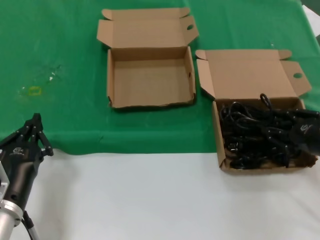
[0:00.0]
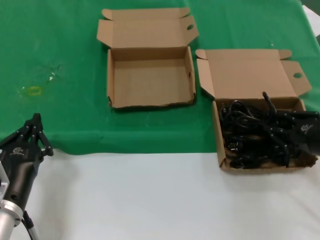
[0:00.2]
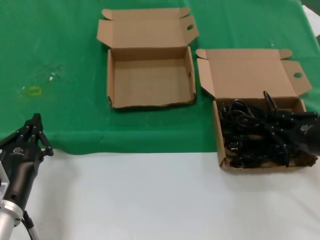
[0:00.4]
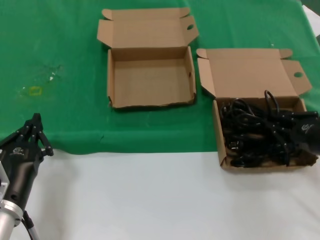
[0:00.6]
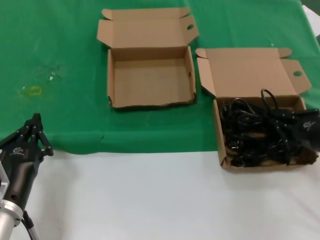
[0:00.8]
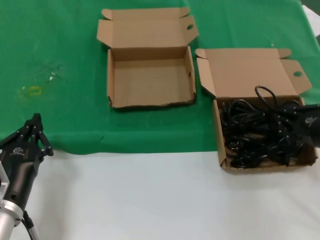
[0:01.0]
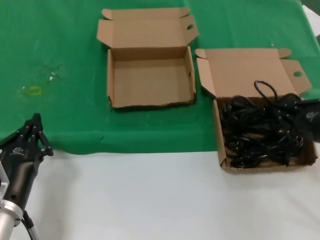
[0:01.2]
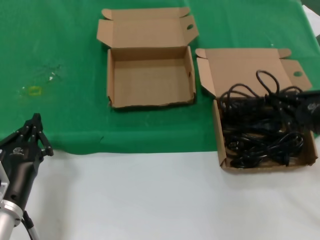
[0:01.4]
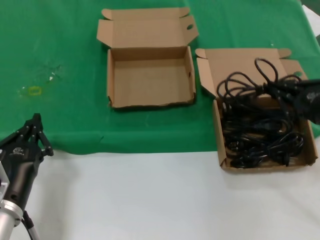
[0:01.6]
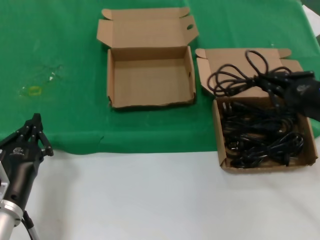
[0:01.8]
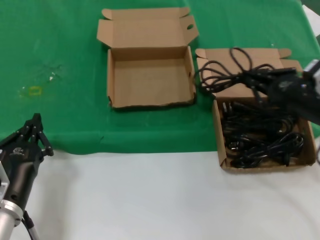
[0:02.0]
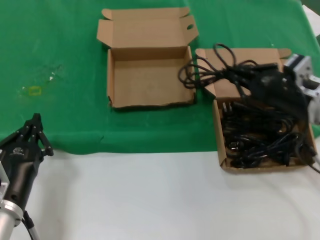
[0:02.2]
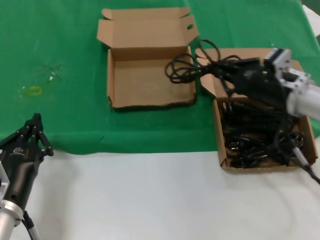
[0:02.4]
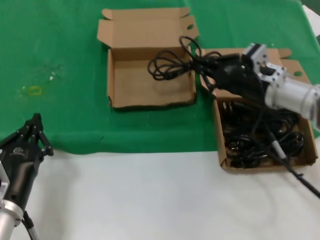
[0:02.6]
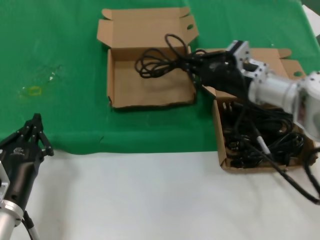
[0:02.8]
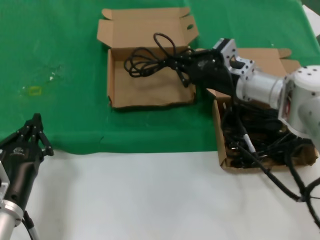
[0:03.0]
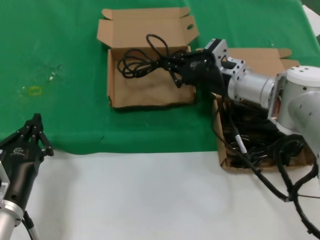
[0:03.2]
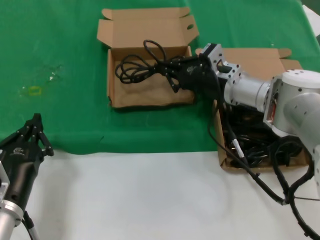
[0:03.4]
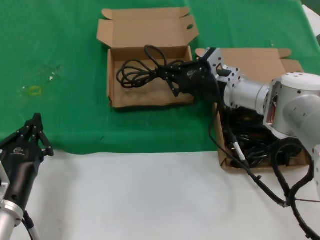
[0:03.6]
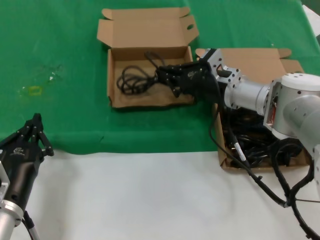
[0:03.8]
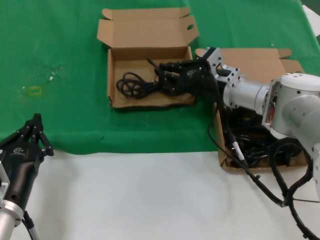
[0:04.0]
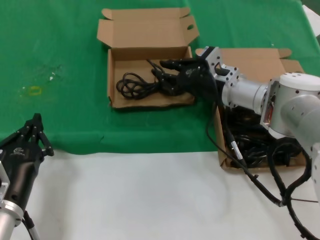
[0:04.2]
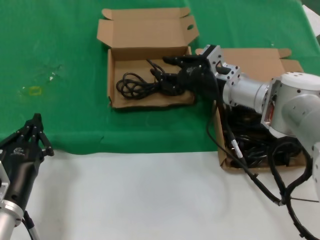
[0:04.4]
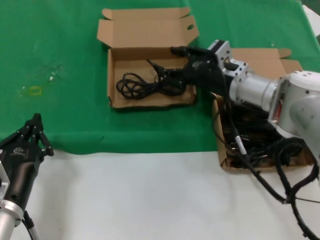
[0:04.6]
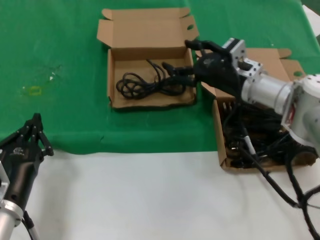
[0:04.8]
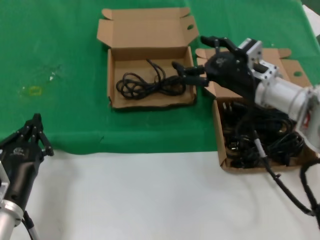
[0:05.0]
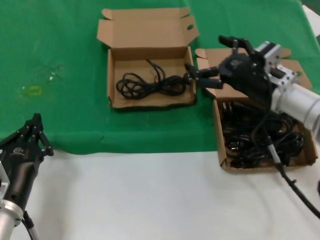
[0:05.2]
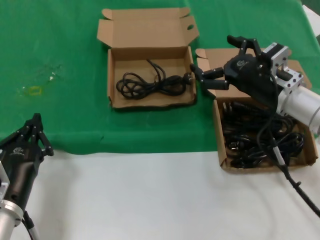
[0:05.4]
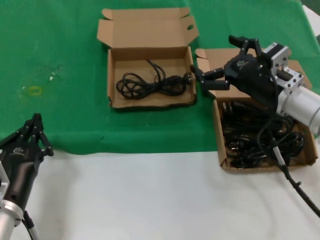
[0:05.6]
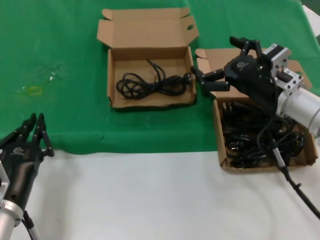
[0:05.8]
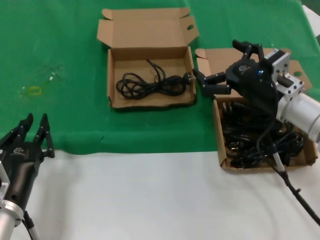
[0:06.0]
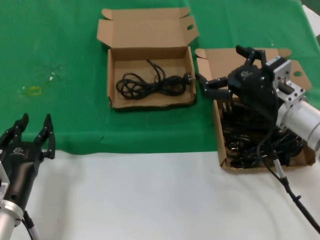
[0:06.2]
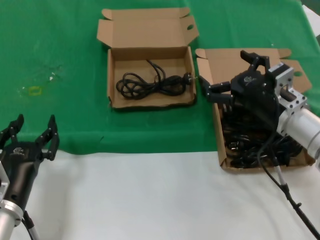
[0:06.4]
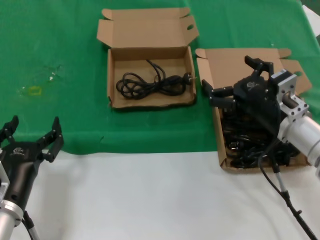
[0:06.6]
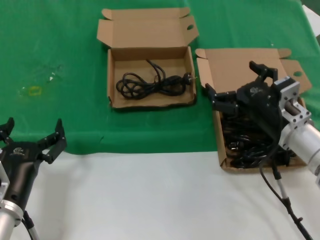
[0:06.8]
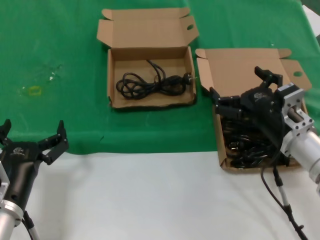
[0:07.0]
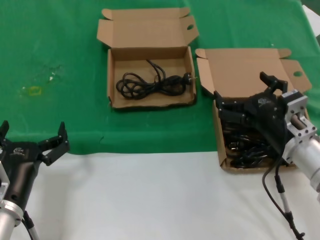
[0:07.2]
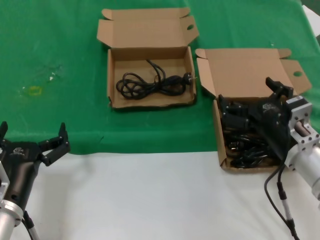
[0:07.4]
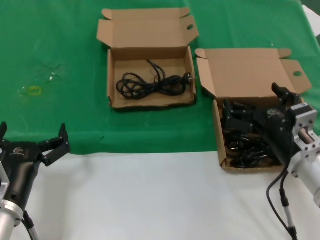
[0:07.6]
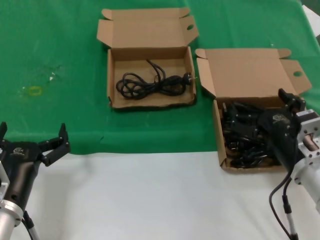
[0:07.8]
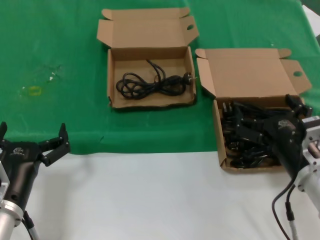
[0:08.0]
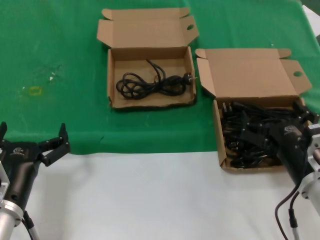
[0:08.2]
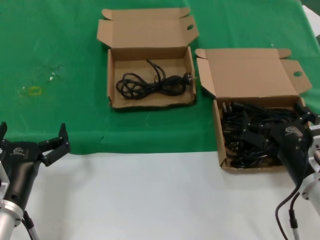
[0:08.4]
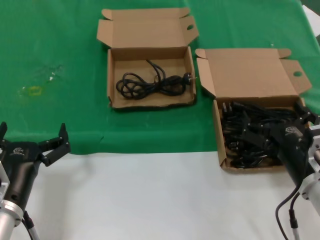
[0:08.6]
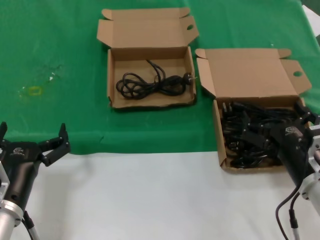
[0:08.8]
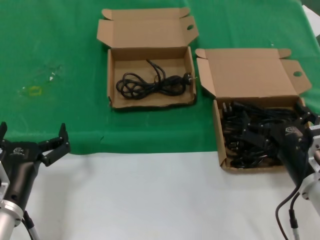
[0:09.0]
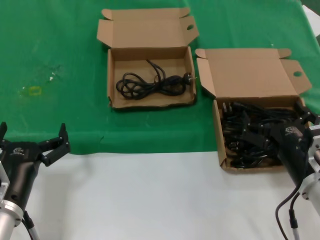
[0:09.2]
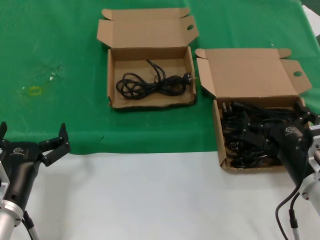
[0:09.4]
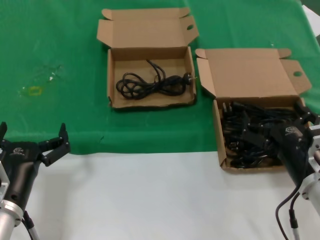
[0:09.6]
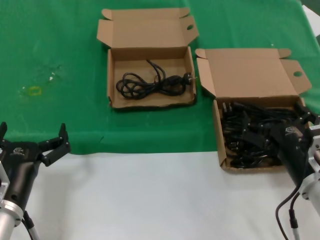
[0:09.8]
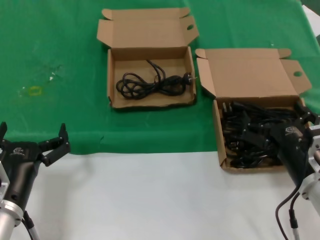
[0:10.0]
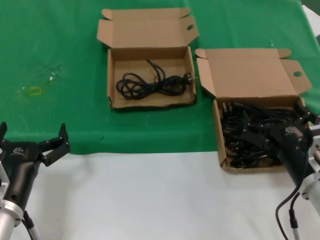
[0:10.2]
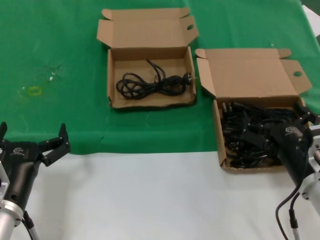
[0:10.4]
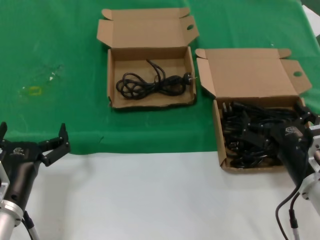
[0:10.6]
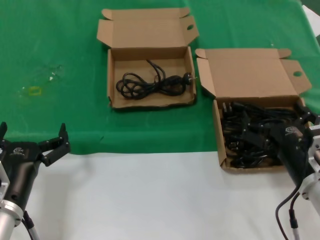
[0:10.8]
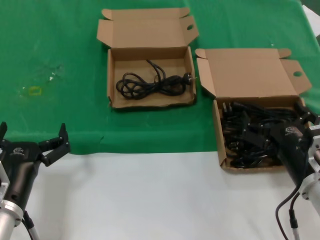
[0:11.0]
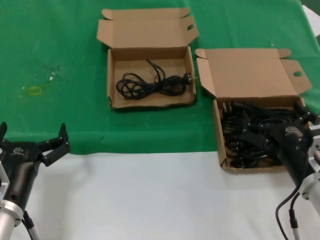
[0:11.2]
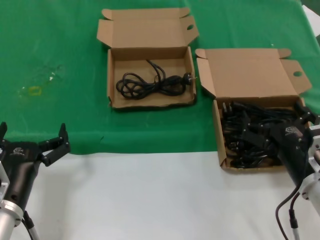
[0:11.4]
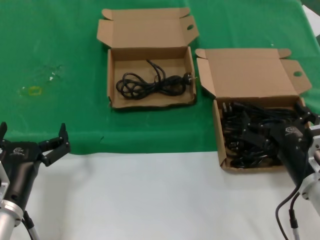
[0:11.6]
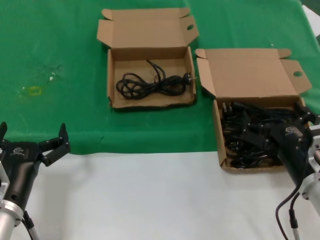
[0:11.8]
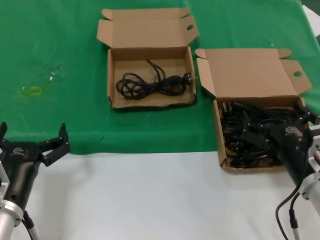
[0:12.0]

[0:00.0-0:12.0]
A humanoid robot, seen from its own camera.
Task of the whole recording: take the parts from the box containing them and put them into an empty box.
Step, 0:01.0 to 0:03.8: Place the data cable in the another box.
0:00.0 to 0:01.6: The right hand heads upward, covering roughly 5 cm.
0:01.6 to 0:03.0: The right hand travels forward and to the left by roughly 25 cm.
0:03.0 to 0:04.4: There are only small adjustments of the hands.
0:04.4 to 0:06.0: The right hand moves backward and to the right, some 10 cm.
0:06.0 to 0:07.6: The right hand shifts some 10 cm backward and downward.
0:07.6 to 0:09.0: The hands make only small movements.
0:09.0 to 0:12.0: Both hands stay put.

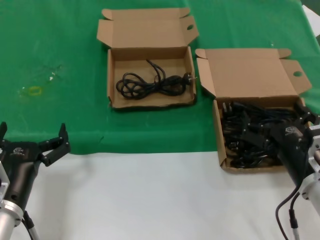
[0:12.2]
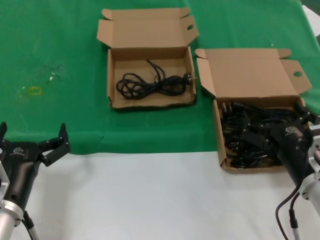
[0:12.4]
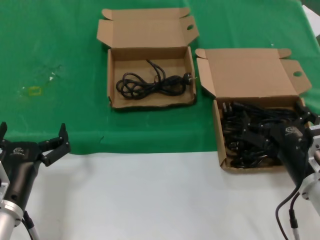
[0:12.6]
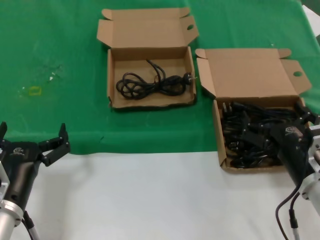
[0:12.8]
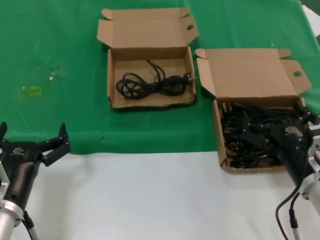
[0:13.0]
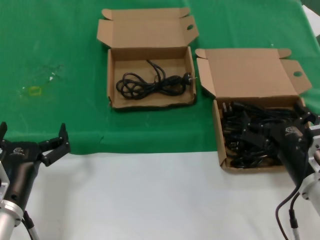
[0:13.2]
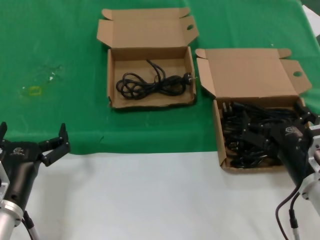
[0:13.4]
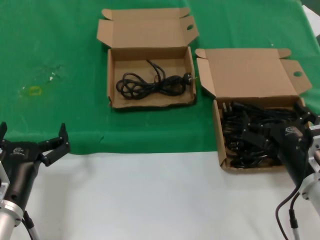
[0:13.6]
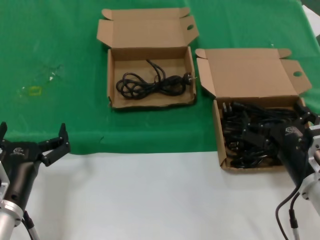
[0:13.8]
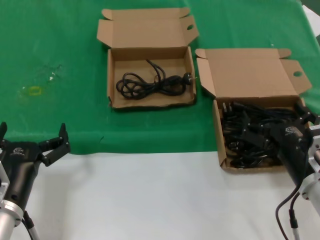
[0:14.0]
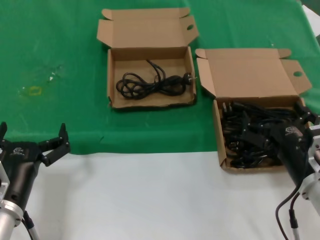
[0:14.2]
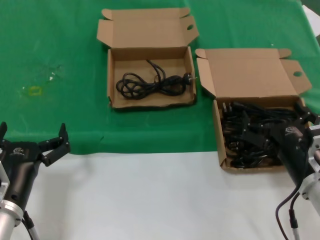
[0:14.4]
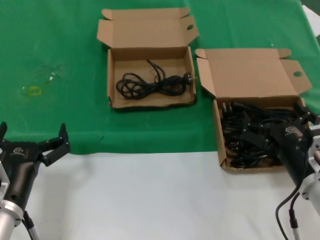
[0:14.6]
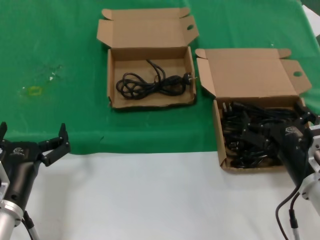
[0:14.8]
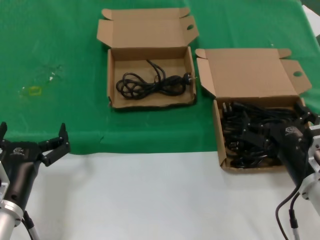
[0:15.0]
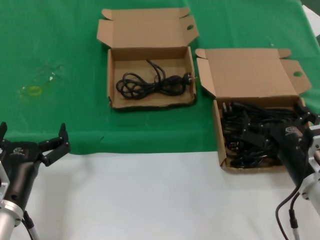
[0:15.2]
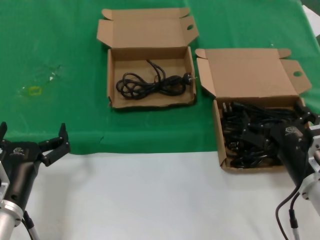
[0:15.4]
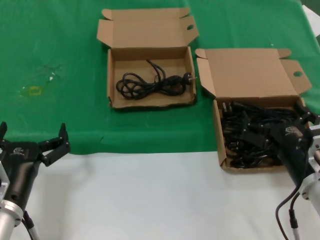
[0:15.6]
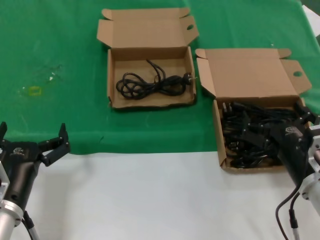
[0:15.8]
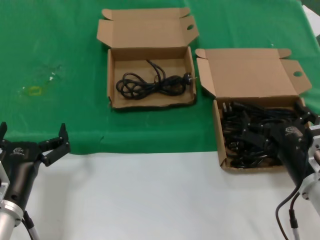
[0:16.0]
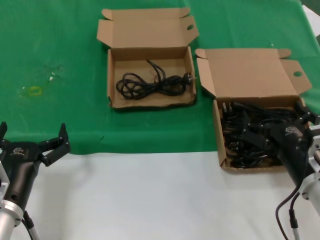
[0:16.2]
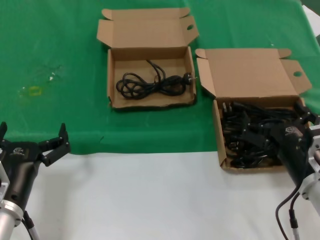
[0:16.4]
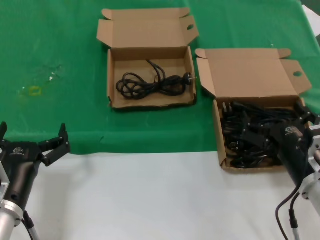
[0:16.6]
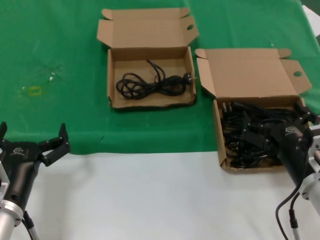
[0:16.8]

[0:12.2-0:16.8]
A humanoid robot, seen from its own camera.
Task of the whole recording: take the parts from the box containing them and put them into an empty box.
0:12.2 to 0:16.8: The two hands keep their place.

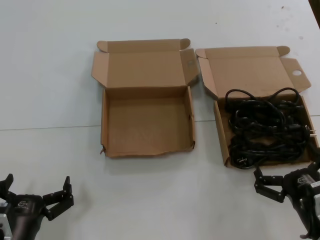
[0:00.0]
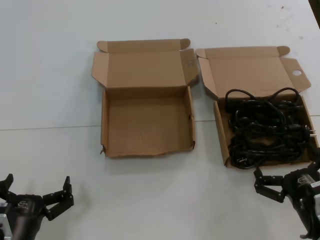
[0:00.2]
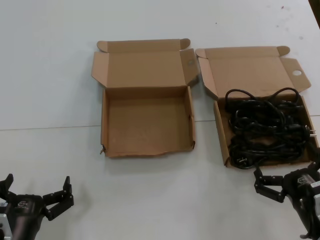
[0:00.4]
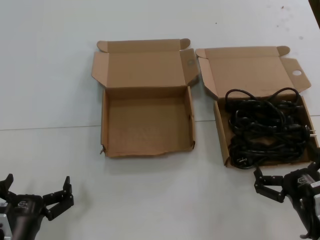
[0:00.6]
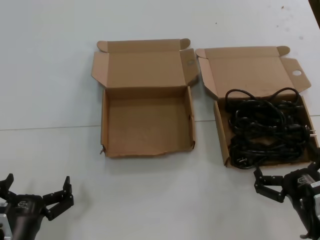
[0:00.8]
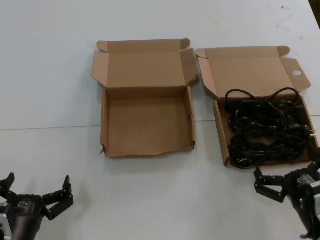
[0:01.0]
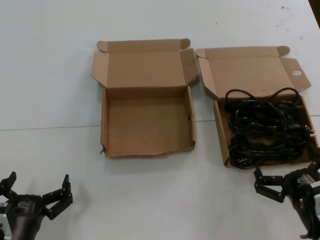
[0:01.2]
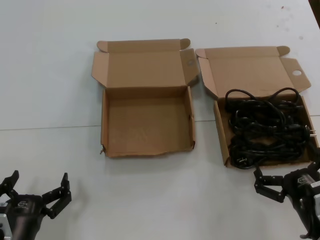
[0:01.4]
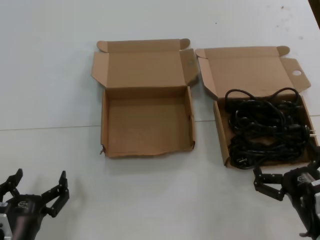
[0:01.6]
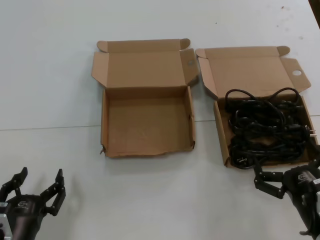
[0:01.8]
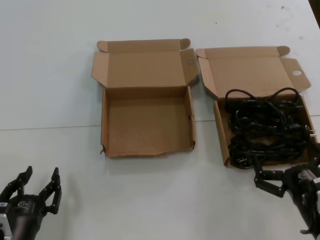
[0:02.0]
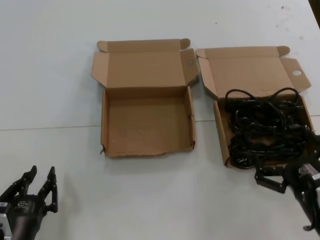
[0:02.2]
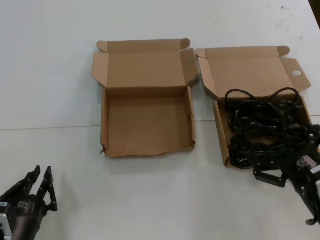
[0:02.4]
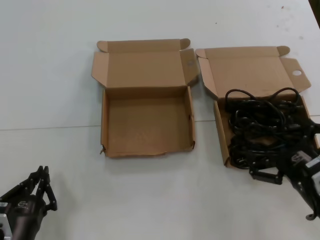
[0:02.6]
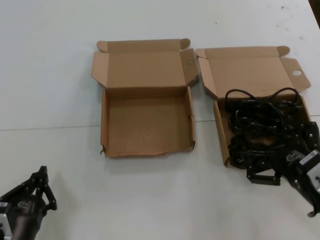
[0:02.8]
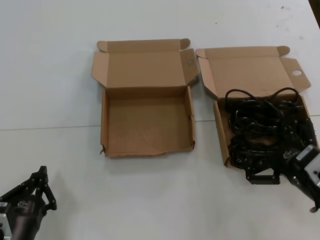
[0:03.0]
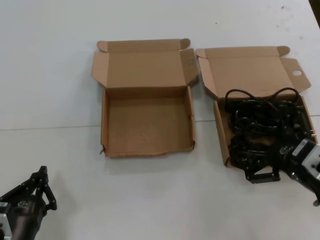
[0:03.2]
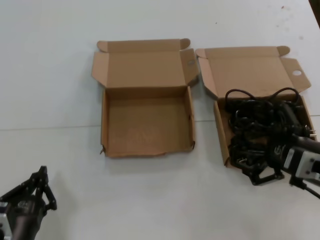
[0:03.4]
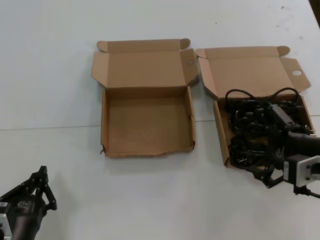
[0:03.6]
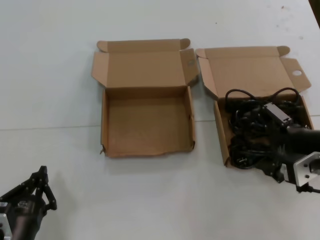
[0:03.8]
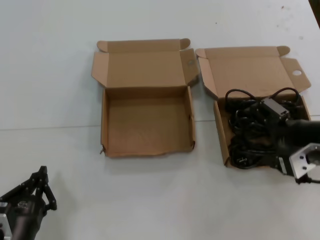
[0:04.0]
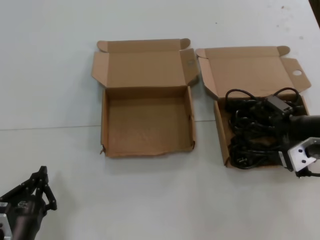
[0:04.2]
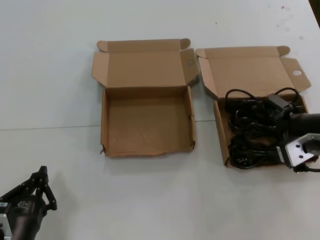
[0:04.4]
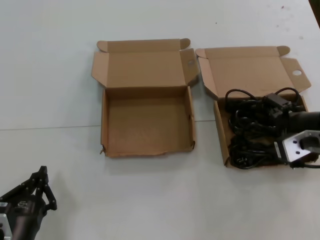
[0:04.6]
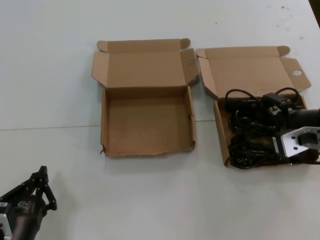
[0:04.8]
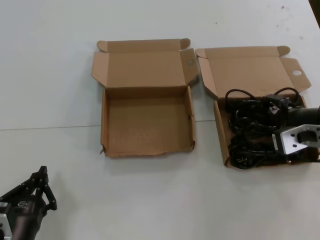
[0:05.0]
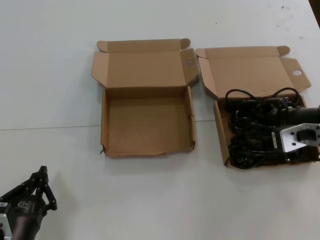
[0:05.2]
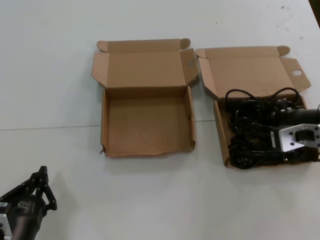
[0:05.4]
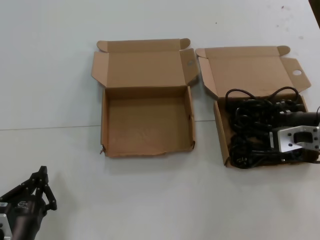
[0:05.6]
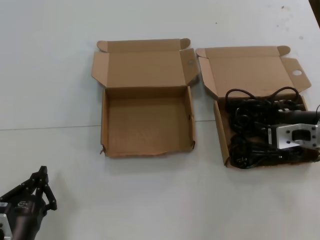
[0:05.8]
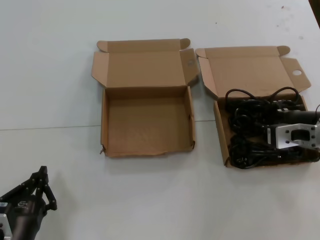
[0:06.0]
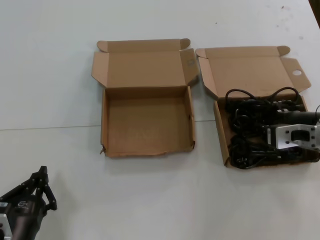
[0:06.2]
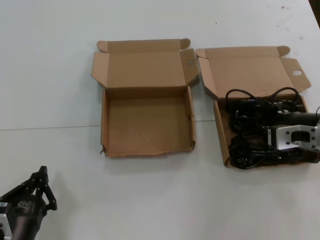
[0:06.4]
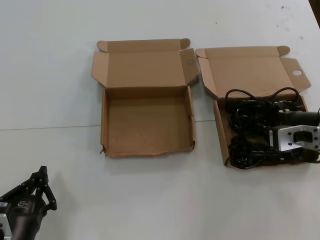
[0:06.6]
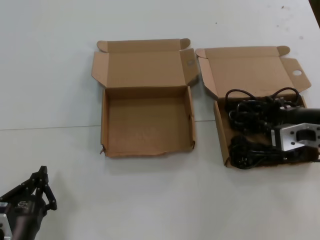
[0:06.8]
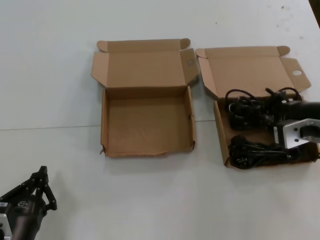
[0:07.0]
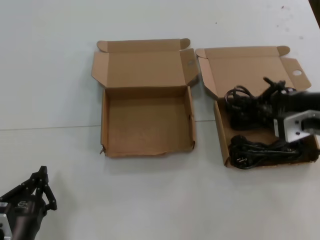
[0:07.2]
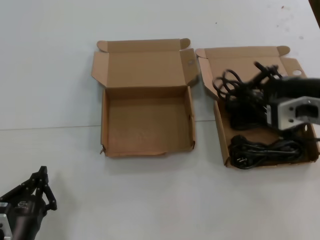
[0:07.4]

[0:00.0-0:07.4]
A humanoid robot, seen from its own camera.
Task of the whole recording: take the parts from the box containing them and put them into an empty box.
Step, 0:00.0 to 0:05.8: Grasp the data cable.
0:00.0 to 0:01.4: Both hands stay about where they are.
0:01.4 to 0:03.0: The right hand is displaced upward by about 10 cm.
0:03.0 to 0:04.4: The right hand goes roughly 15 cm upward and forward.
0:04.4 to 0:06.0: The hands make only small movements.
0:06.0 to 0:07.4: The right hand is displaced upward and backward by roughly 10 cm.
